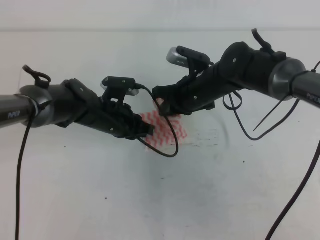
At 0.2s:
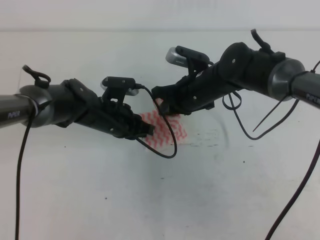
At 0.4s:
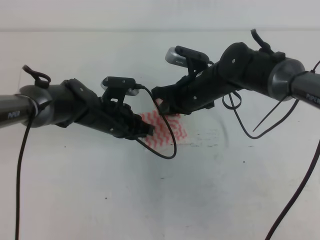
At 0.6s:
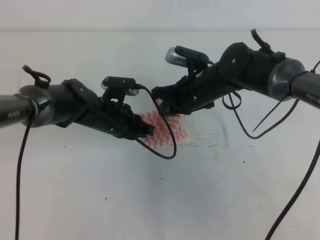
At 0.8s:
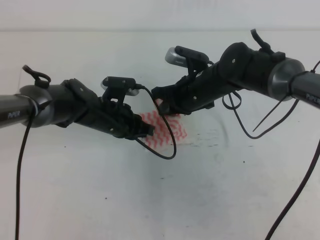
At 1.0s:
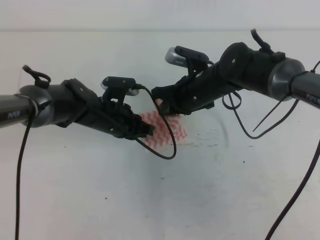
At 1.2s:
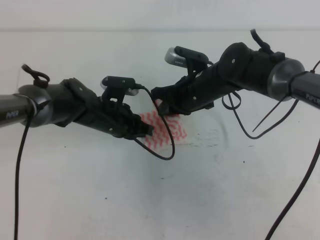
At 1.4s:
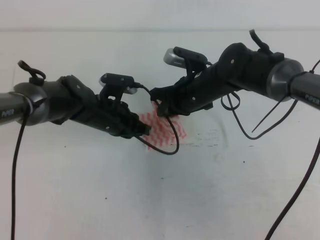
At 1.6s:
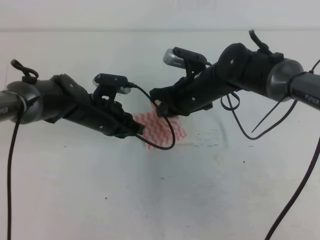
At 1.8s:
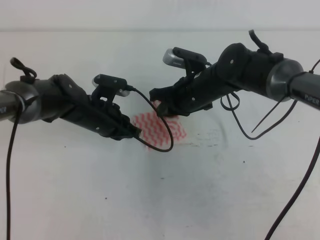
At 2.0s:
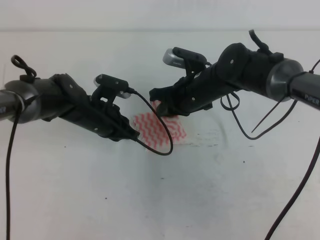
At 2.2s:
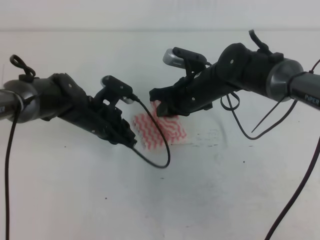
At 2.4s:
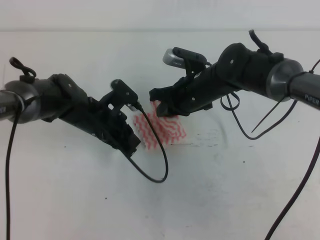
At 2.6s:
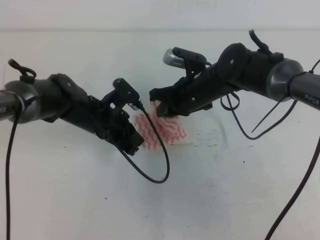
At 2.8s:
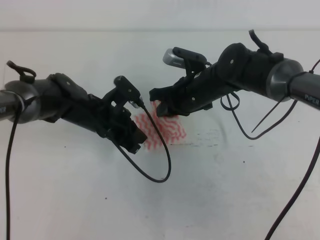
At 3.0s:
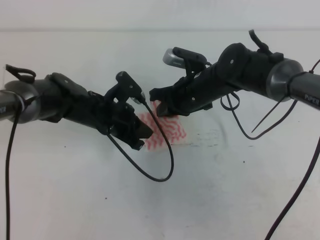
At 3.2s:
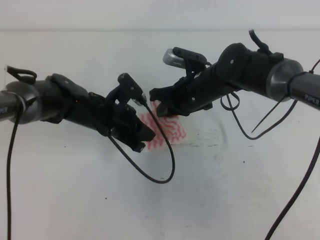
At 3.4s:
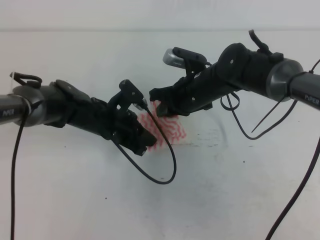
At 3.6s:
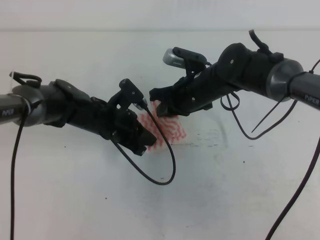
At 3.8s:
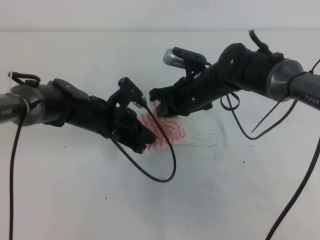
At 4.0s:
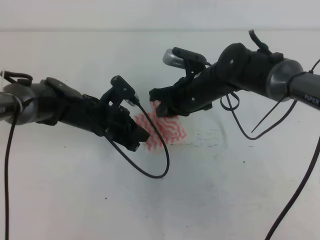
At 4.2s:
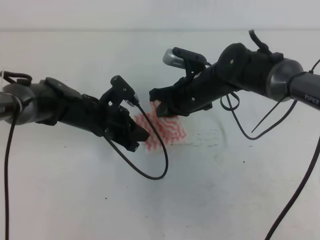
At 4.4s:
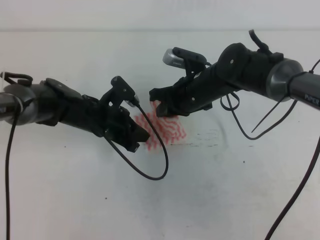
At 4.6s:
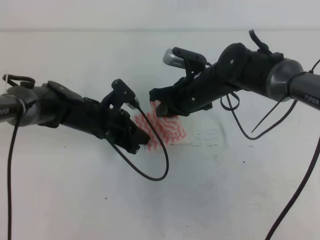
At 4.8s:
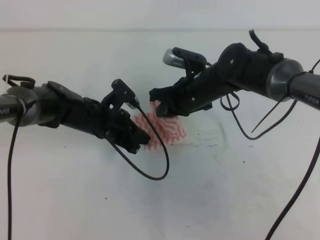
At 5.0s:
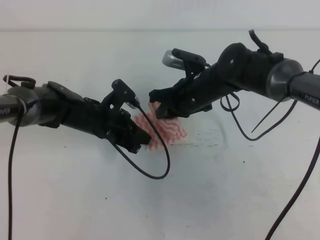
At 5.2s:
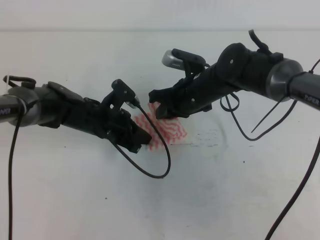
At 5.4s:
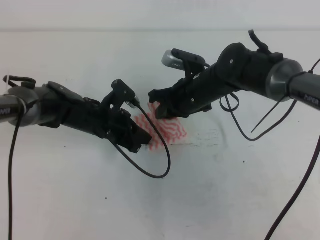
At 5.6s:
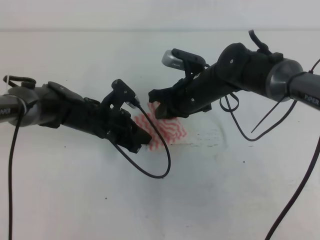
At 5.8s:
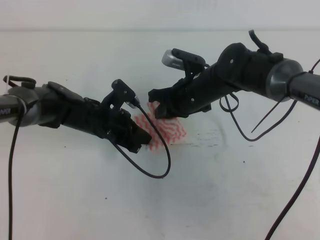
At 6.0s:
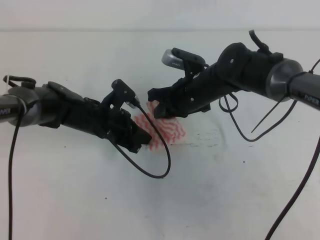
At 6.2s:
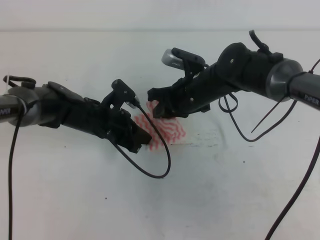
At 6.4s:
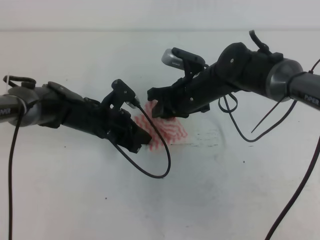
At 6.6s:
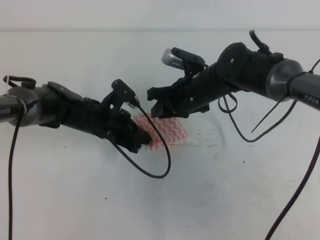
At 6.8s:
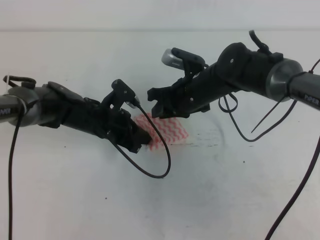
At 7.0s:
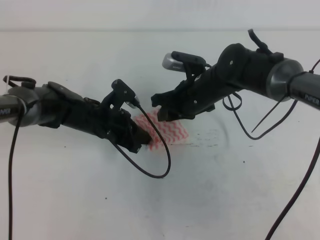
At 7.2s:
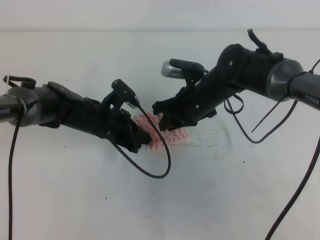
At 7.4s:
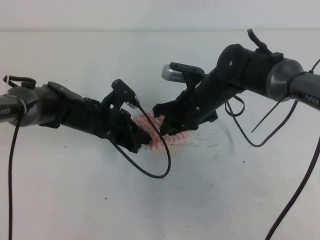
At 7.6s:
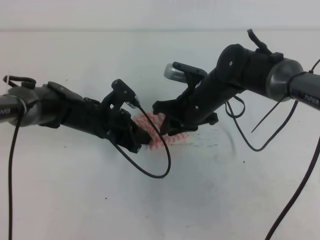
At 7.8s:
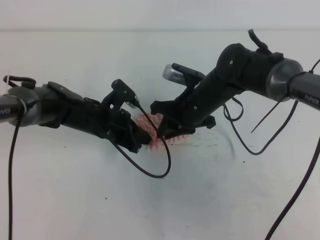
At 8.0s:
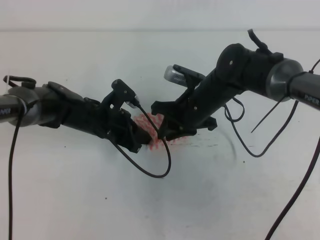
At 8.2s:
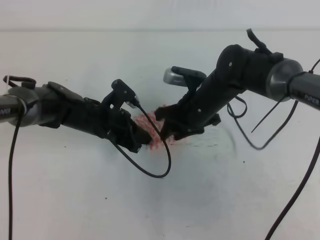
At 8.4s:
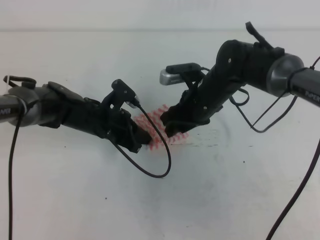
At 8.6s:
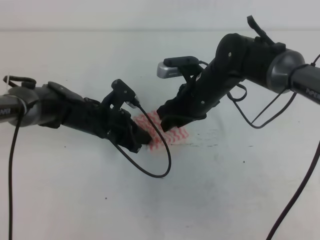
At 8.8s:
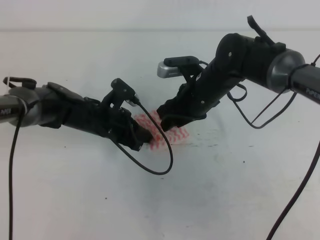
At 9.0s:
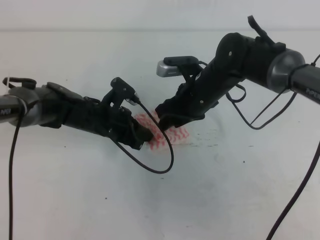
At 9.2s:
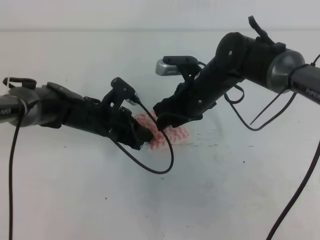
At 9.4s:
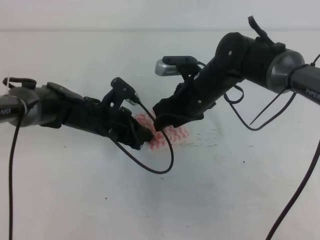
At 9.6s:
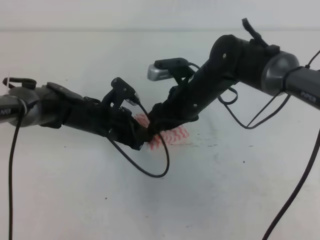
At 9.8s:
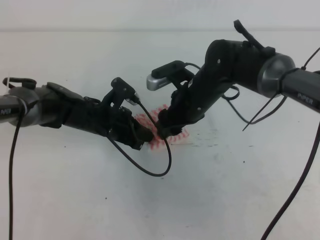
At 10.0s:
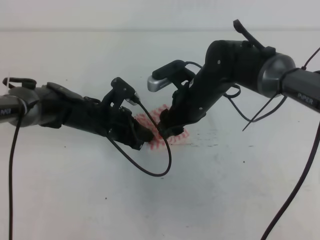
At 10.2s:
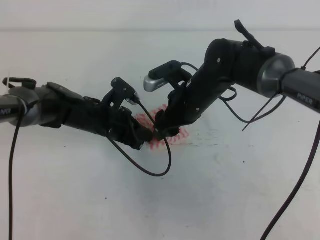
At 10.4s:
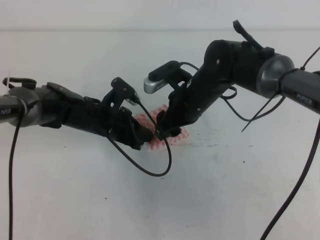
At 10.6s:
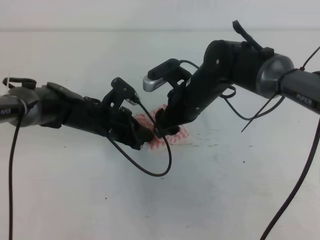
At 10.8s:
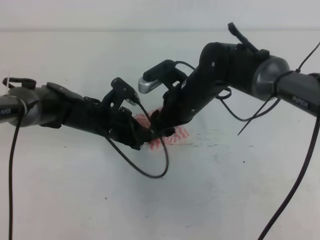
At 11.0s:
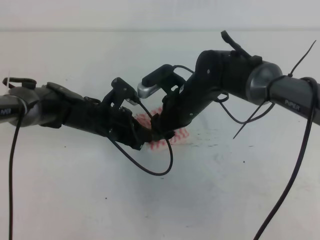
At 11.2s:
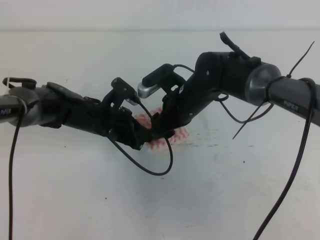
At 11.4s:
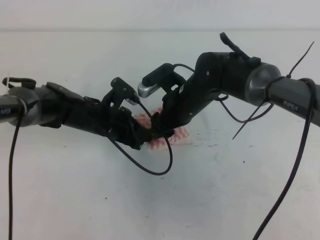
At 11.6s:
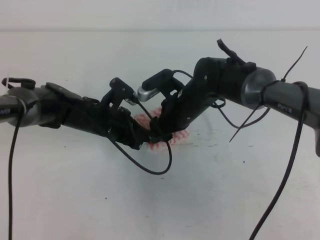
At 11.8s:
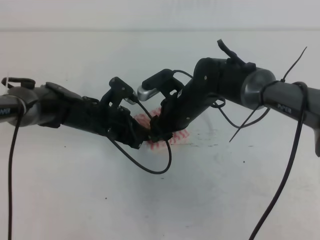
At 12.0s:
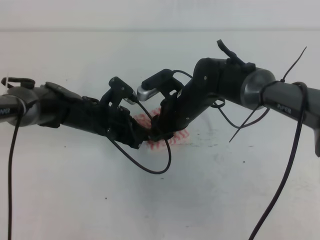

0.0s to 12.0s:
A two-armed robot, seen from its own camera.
0.0s to 1.6s: The grippers move only a little.
3.0s to 4.4s: The grippers make only small movements.
4.4s to 6.0s: Both grippers stay about where they are.
6.0s to 7.6s: The grippers move only a little.
7.6s to 9.0s: The right gripper opens up.
9.0s to 10.4s: The grippers move only a little.
10.4s to 12.0s: The right gripper closes its fingers.

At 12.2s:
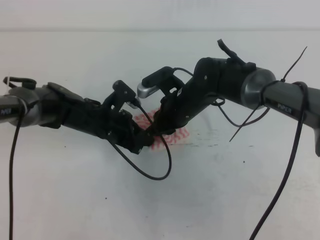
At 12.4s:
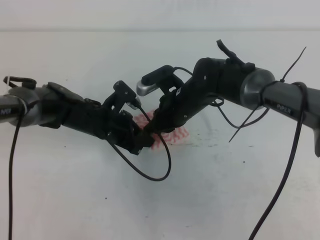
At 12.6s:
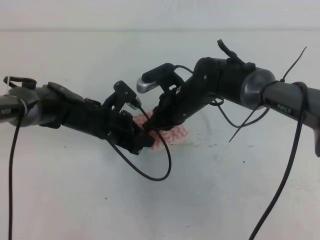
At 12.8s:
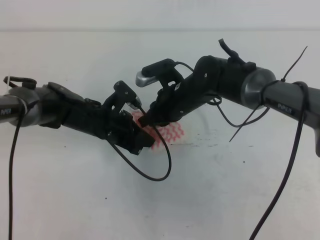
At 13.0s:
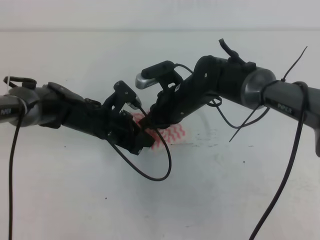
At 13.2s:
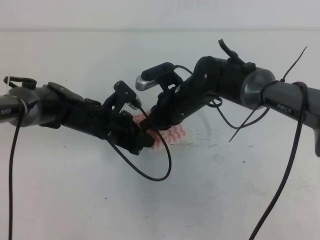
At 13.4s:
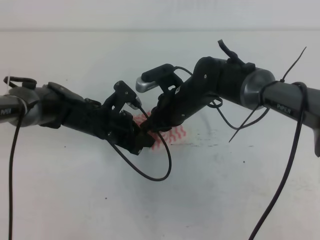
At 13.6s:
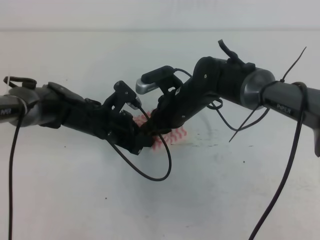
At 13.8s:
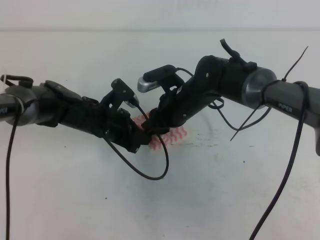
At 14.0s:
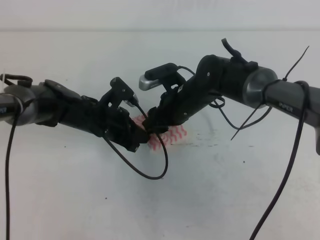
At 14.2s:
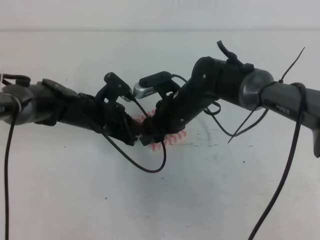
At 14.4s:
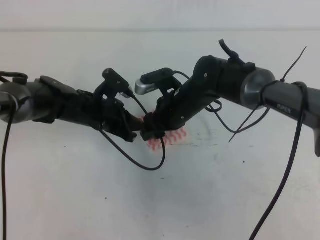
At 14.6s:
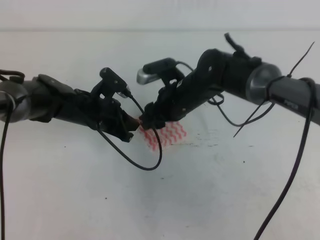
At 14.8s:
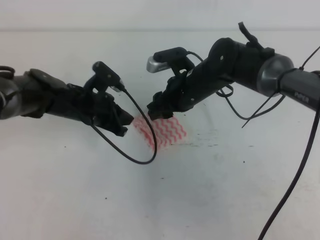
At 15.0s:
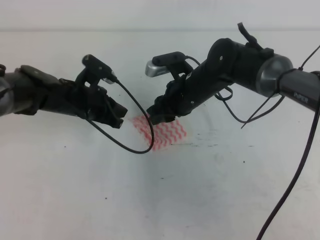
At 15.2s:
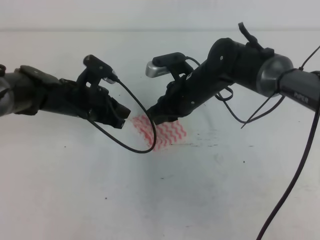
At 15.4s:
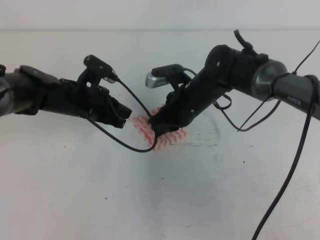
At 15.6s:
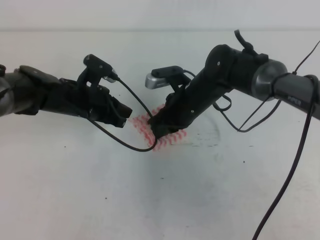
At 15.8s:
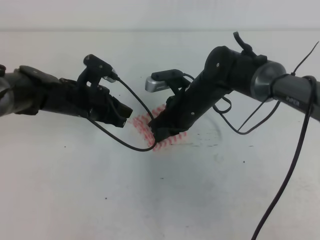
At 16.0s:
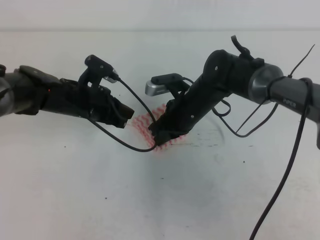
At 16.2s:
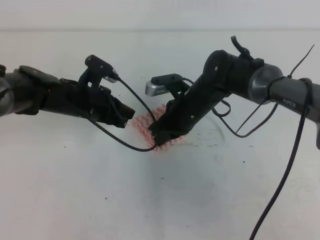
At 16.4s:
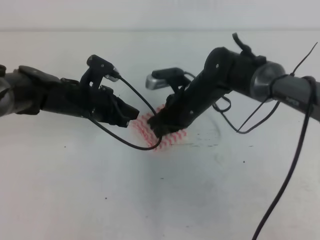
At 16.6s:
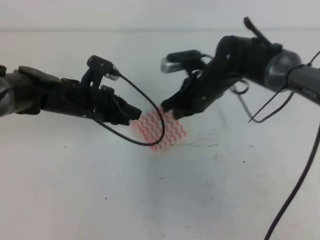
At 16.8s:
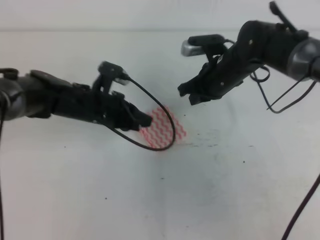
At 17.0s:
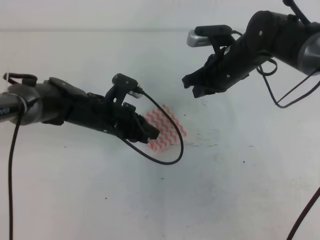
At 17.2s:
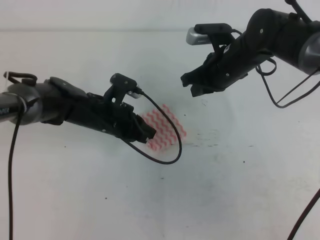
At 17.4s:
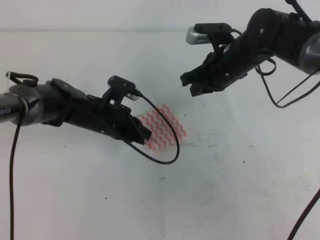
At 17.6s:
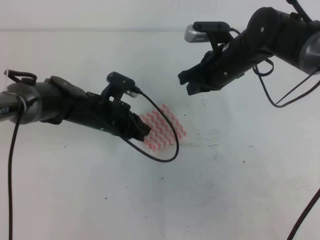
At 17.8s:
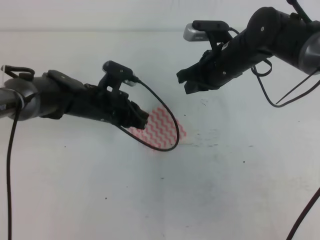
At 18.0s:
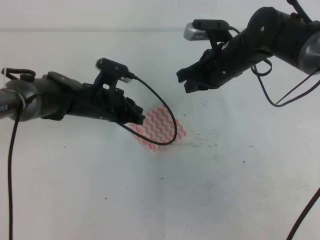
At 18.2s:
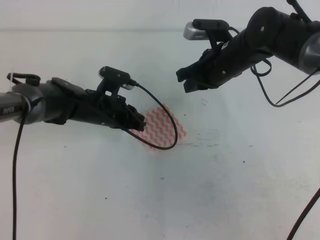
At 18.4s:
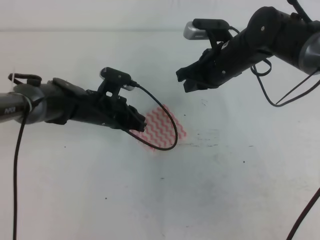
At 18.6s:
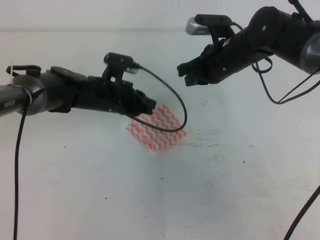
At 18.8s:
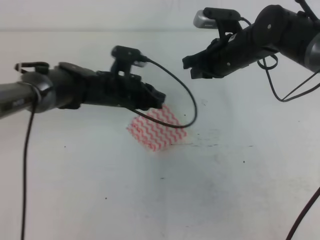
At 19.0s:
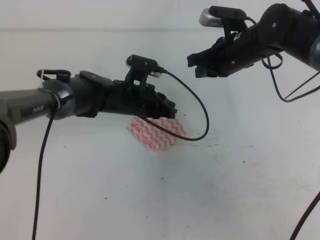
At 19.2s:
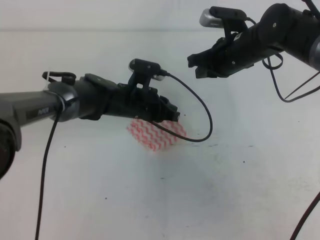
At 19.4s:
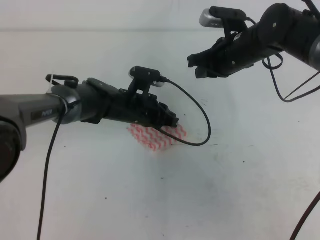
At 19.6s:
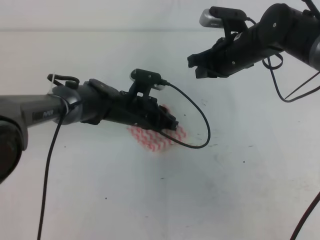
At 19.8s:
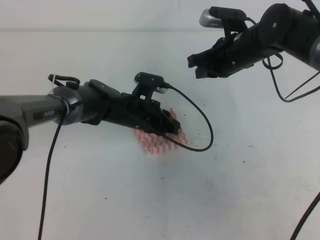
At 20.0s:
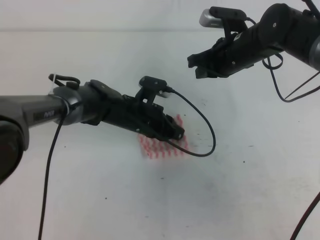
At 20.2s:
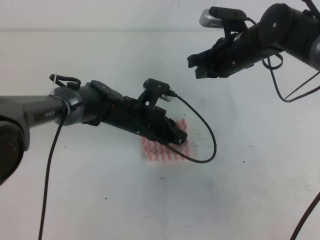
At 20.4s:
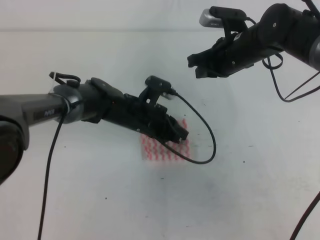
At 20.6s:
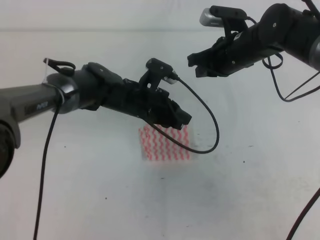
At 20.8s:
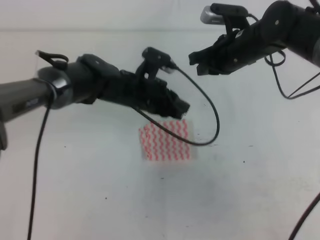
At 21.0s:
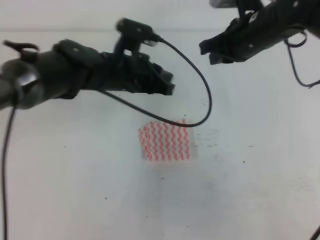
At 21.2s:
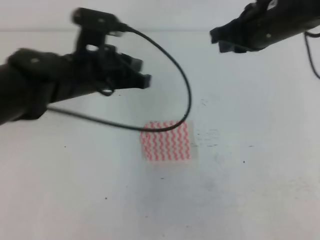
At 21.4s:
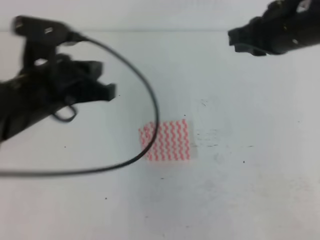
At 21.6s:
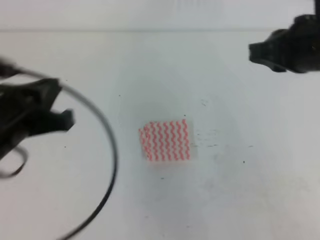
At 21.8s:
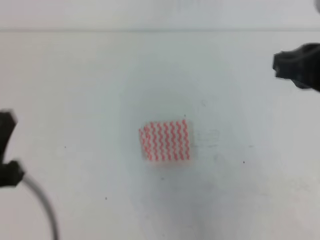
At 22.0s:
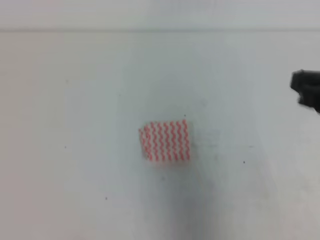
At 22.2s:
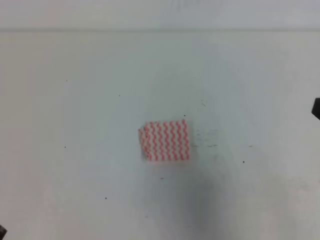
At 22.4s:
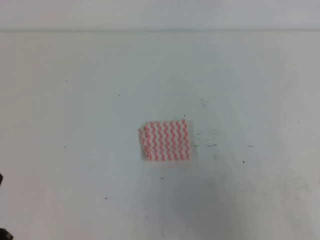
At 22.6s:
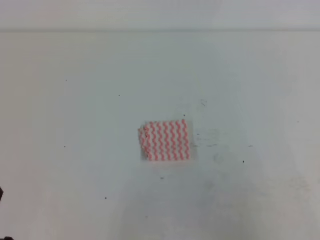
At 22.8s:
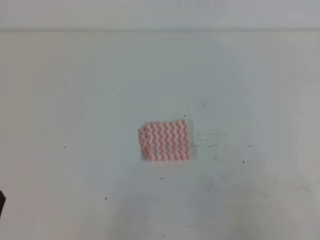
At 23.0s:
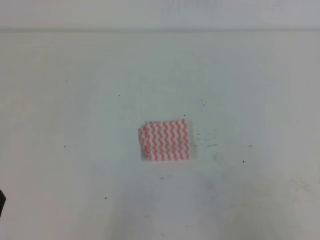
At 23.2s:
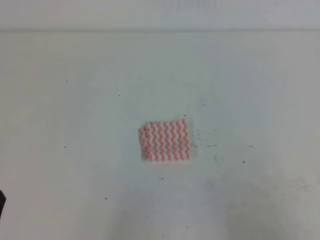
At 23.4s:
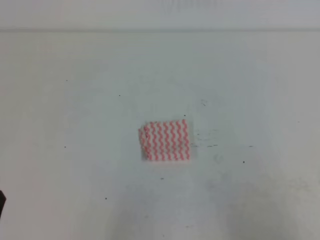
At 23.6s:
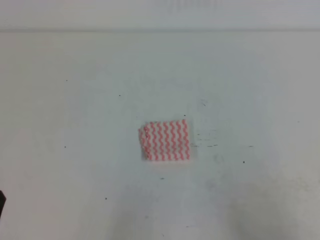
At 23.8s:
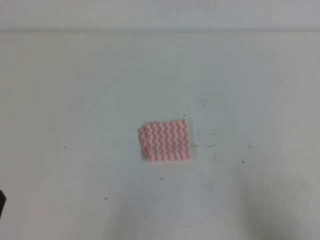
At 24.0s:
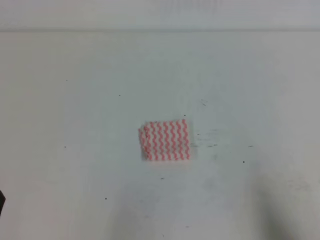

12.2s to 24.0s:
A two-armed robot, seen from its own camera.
12.2s to 13.6s: There are only small adjustments of the grippers.
13.6s to 15.2s: The left gripper moves about 5 cm. Meanwhile the right gripper opens and closes again.
15.2s to 16.6s: The grippers make only small movements.
16.6s to 18.2s: The right gripper ends up roughly 5 cm from where it was.
18.2s to 19.6s: The left gripper heads to the right, covering roughly 5 cm.
19.6s to 21.0s: The right gripper moves about 5 cm. The left gripper shifts approximately 10 cm upward.
21.0s to 22.6s: The right gripper is displaced backward by roughly 35 cm. The left gripper heads backward and to the left, covering about 35 cm.
22.6s to 24.0s: The right gripper moves downward, some 10 cm.
